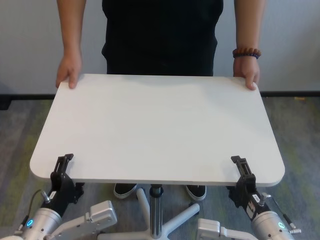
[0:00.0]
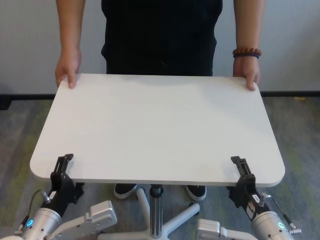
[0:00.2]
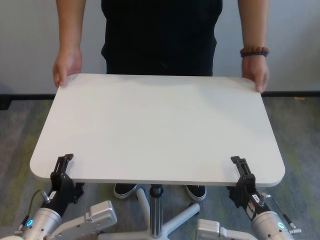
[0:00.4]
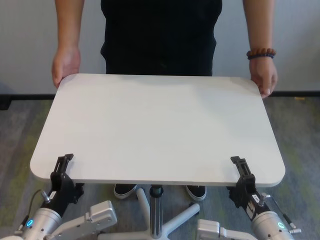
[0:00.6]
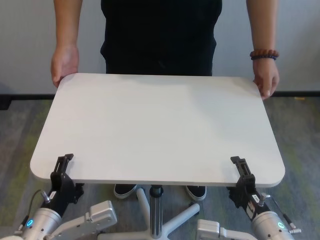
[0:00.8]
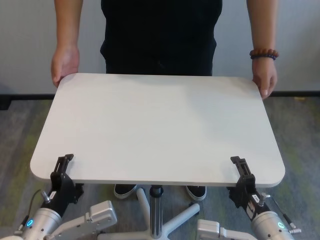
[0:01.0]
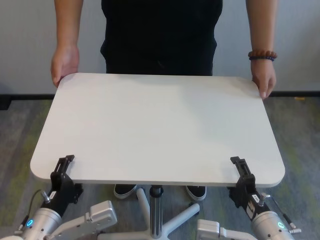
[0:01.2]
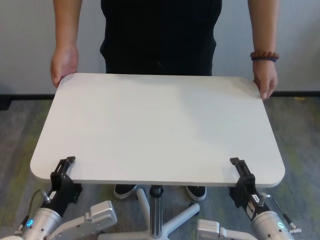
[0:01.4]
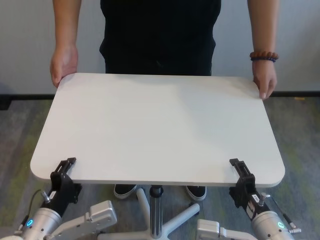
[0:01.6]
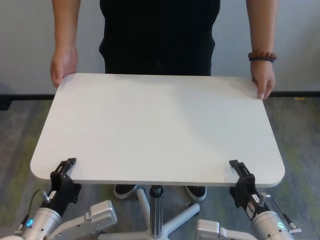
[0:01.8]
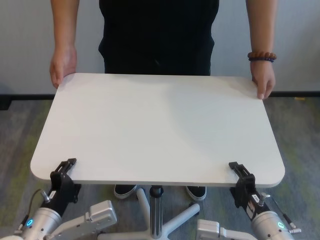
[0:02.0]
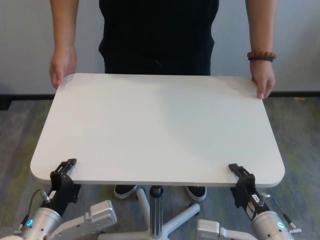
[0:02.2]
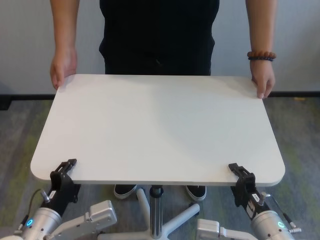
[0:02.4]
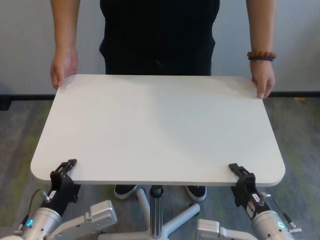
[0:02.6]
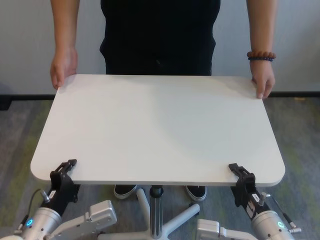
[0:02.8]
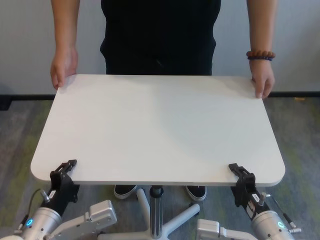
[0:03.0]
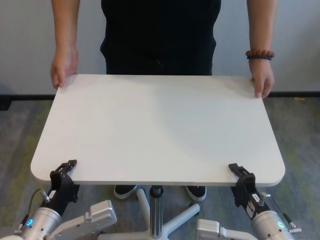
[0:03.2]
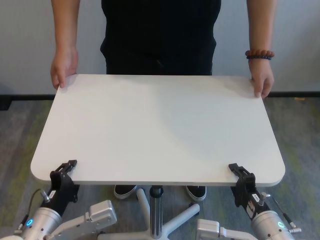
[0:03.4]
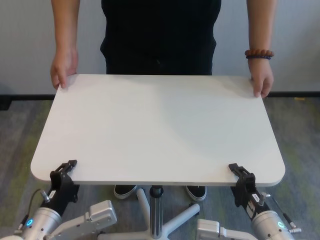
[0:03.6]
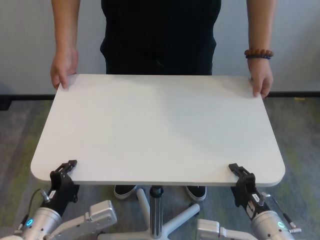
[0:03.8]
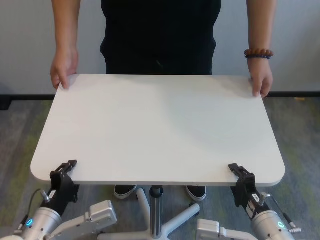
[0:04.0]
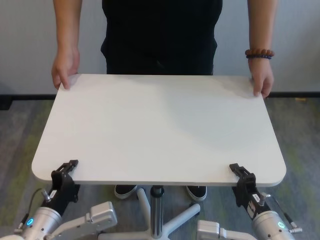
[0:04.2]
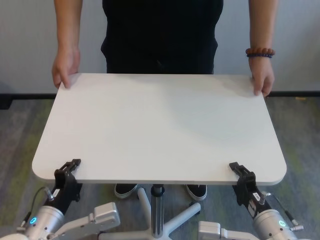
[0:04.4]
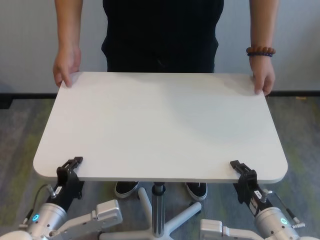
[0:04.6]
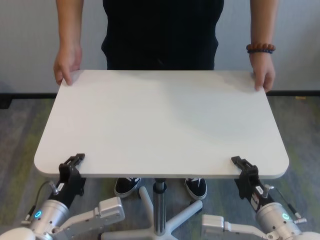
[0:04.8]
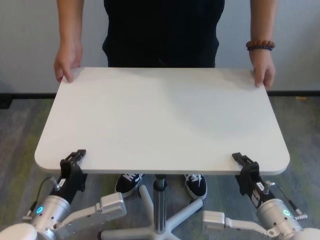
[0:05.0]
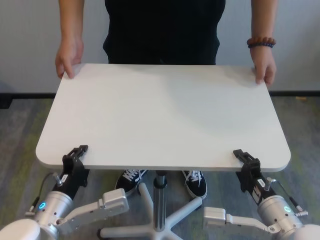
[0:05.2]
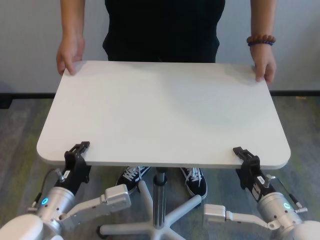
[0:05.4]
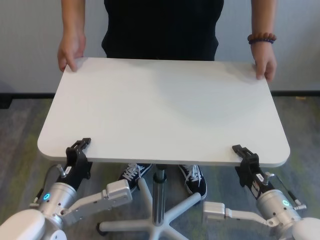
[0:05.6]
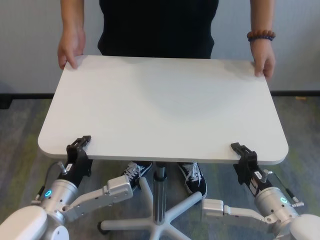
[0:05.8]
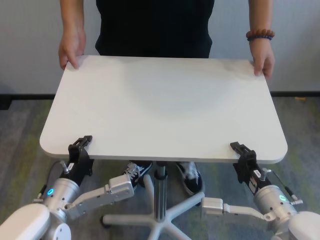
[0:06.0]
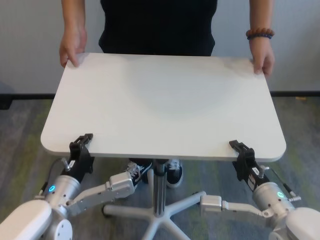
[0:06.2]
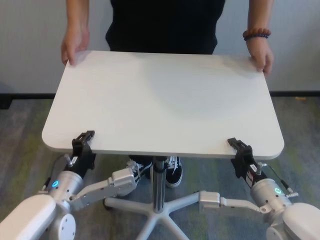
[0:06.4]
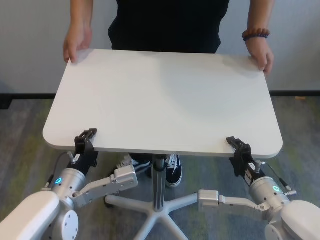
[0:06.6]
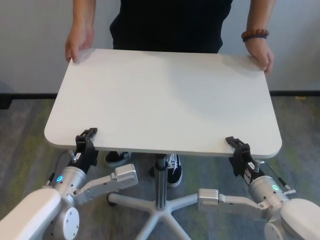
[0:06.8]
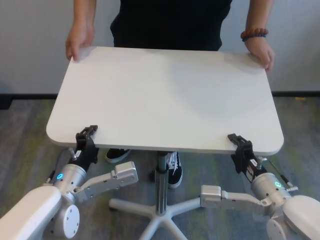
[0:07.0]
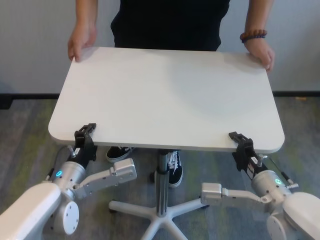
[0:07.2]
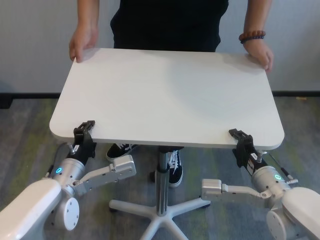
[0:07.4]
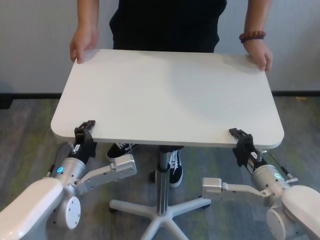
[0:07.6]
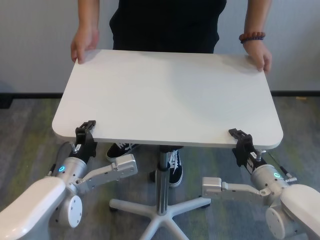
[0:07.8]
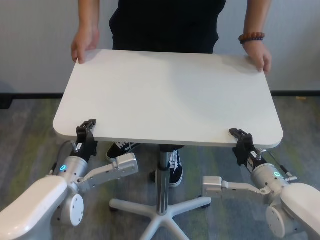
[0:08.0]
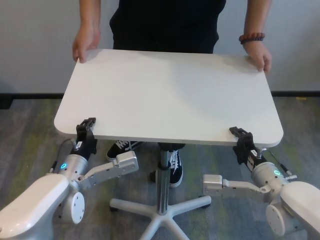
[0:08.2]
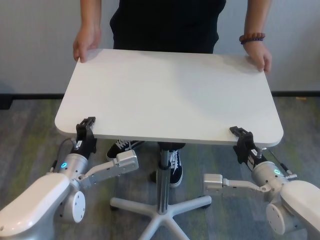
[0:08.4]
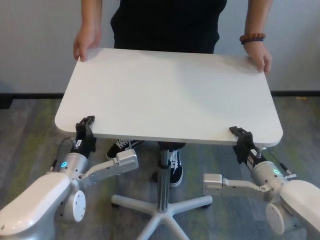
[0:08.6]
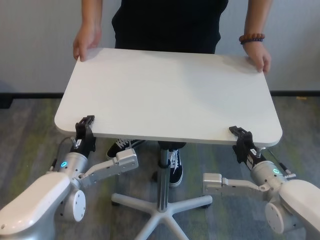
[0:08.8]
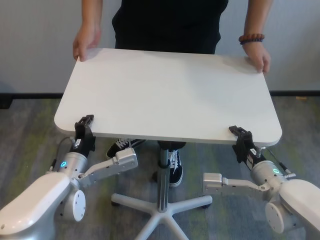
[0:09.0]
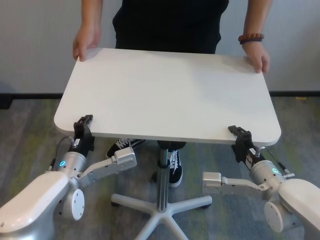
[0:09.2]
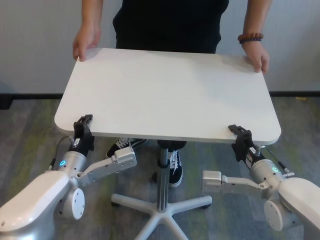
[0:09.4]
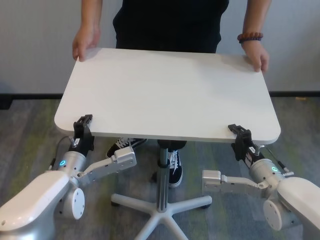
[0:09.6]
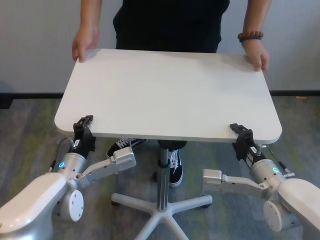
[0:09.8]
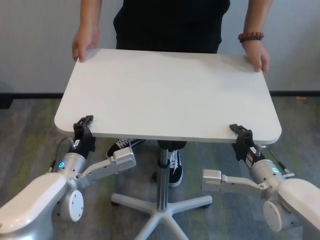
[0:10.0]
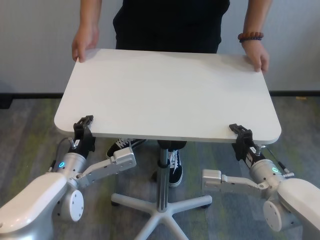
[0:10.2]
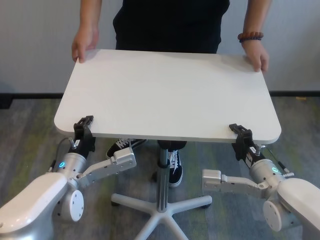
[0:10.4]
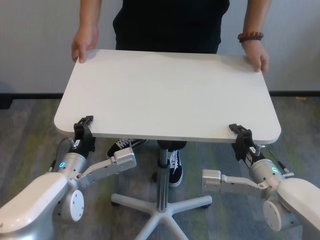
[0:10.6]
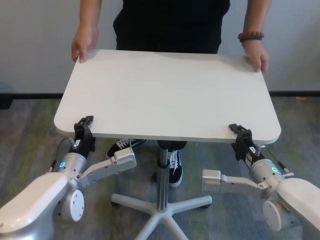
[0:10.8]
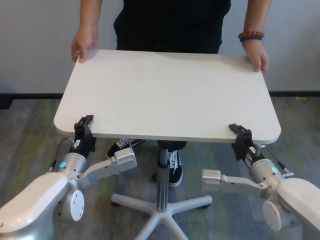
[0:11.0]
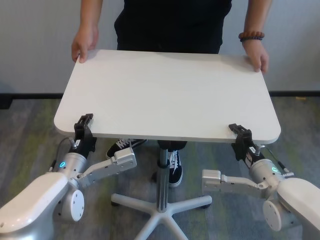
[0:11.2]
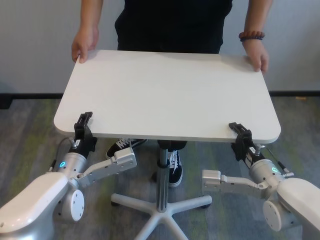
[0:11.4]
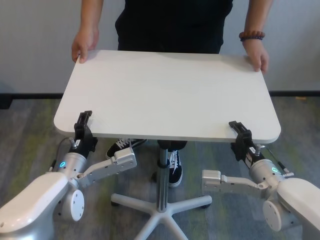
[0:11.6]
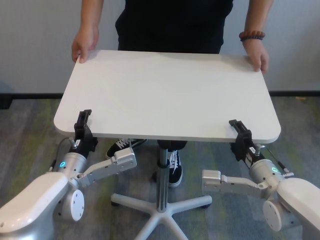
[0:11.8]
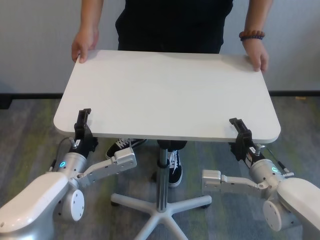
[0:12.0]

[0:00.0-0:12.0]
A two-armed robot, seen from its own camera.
Task of the whole recording: human machine collaborative table moving.
Step, 0:00.0 to 0:03.2: Grasp the table with both grippers.
